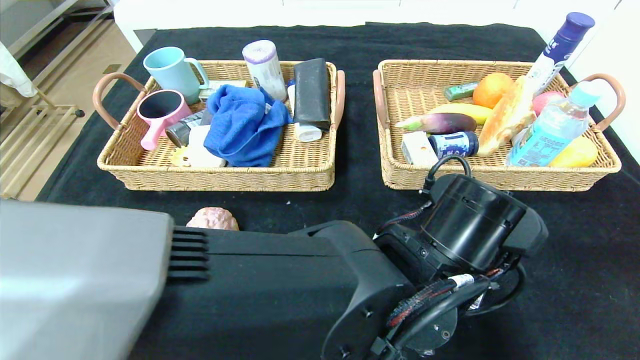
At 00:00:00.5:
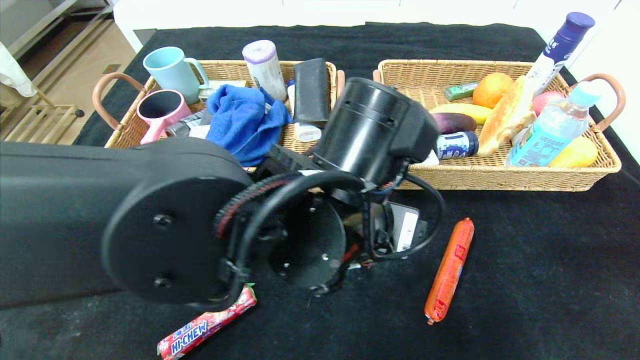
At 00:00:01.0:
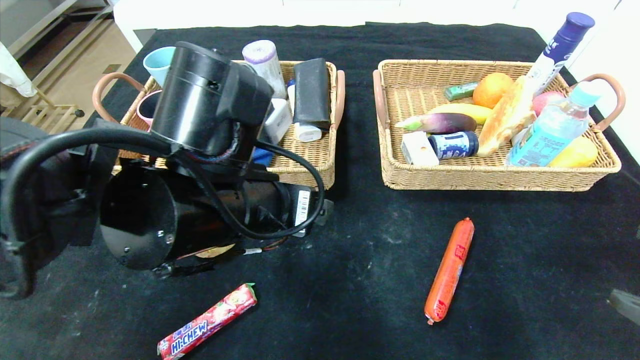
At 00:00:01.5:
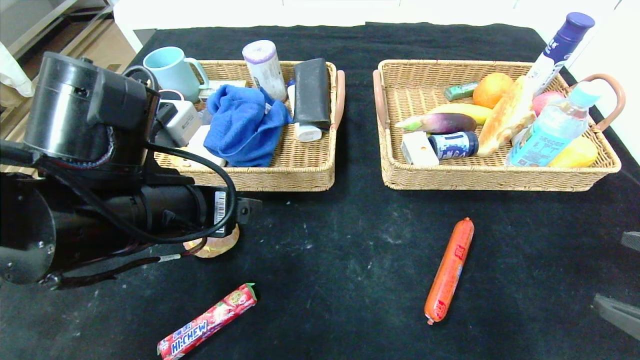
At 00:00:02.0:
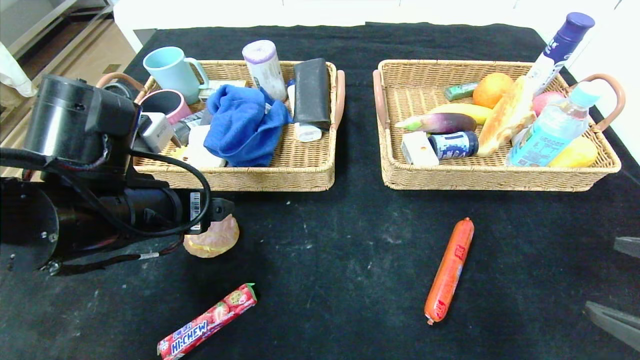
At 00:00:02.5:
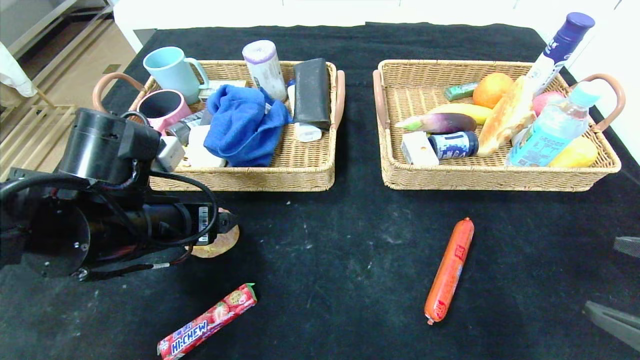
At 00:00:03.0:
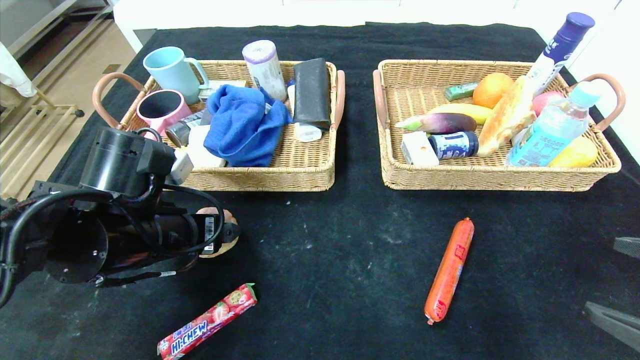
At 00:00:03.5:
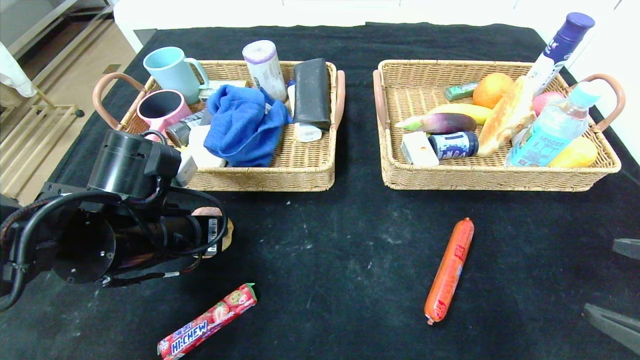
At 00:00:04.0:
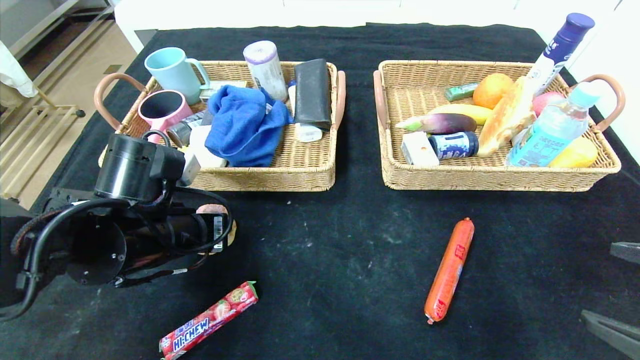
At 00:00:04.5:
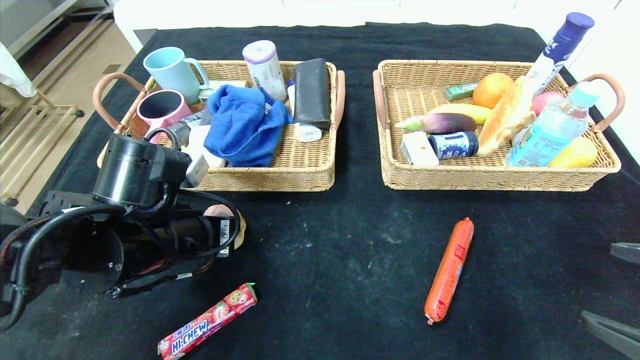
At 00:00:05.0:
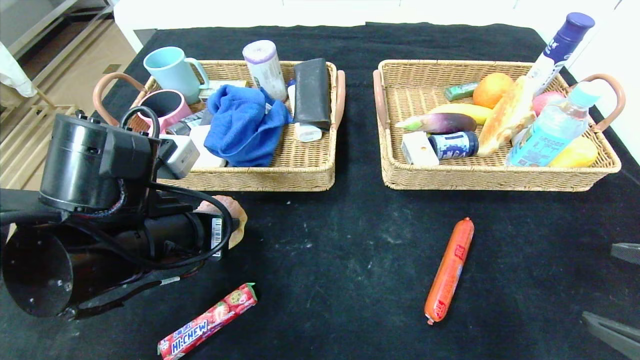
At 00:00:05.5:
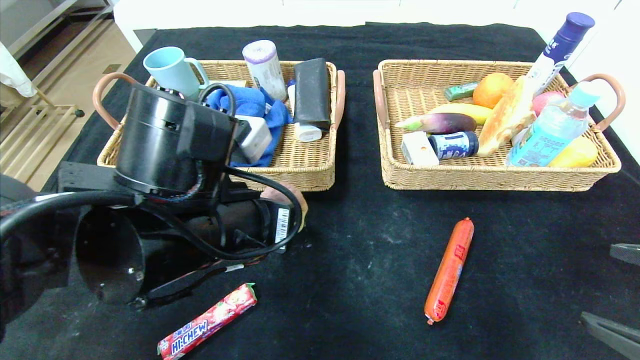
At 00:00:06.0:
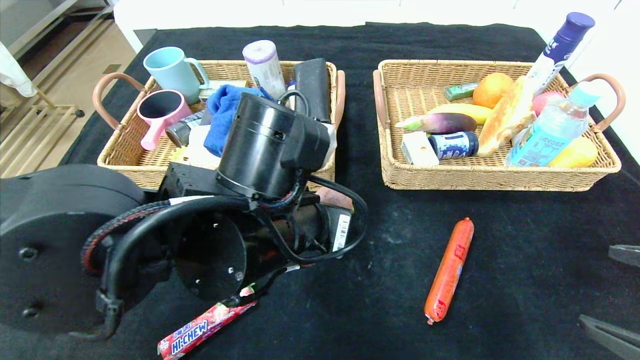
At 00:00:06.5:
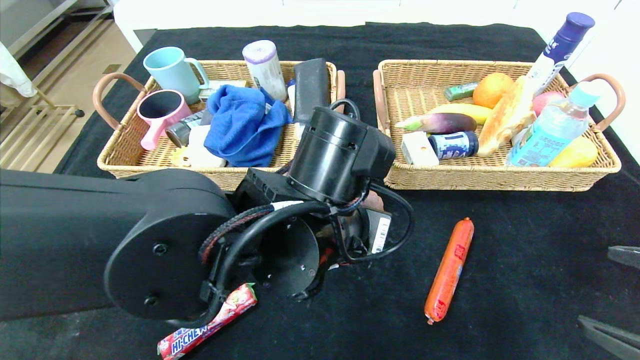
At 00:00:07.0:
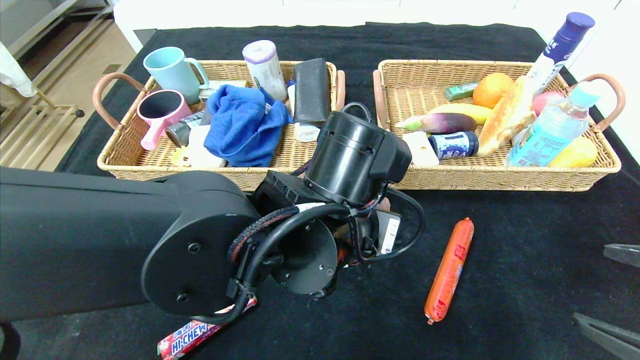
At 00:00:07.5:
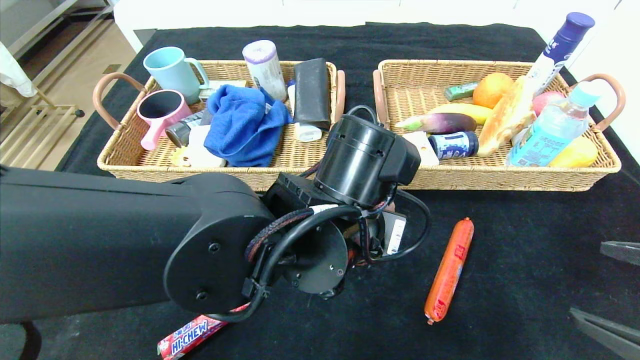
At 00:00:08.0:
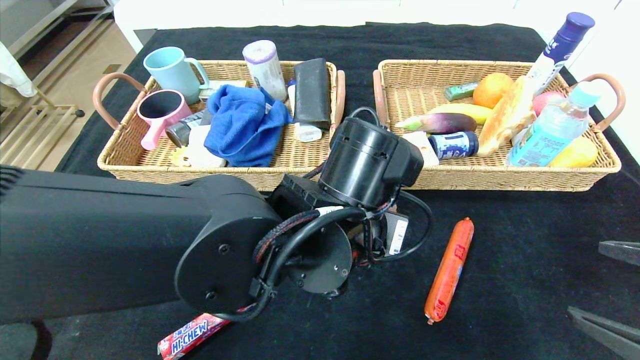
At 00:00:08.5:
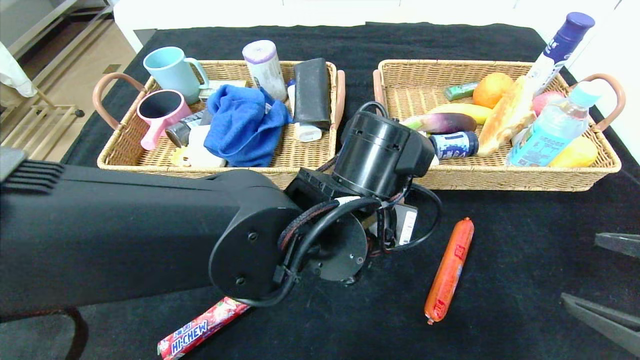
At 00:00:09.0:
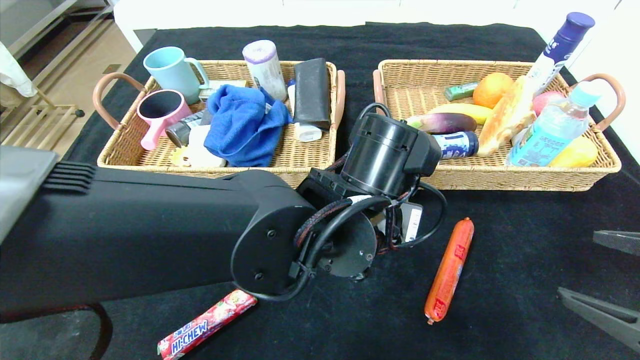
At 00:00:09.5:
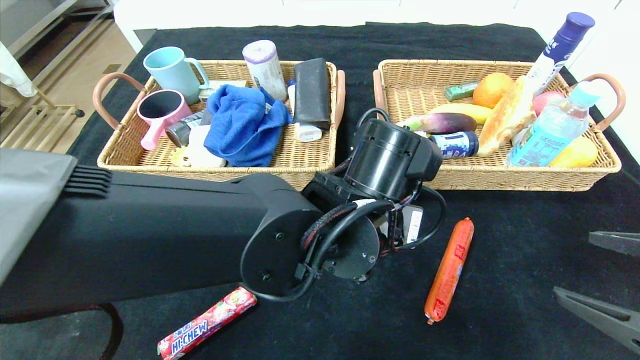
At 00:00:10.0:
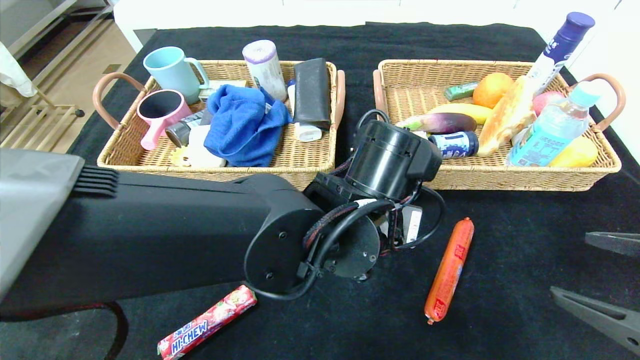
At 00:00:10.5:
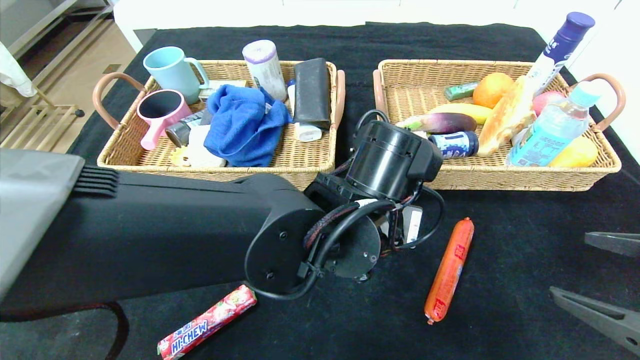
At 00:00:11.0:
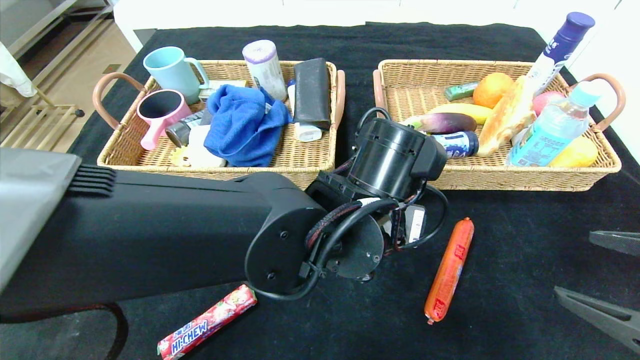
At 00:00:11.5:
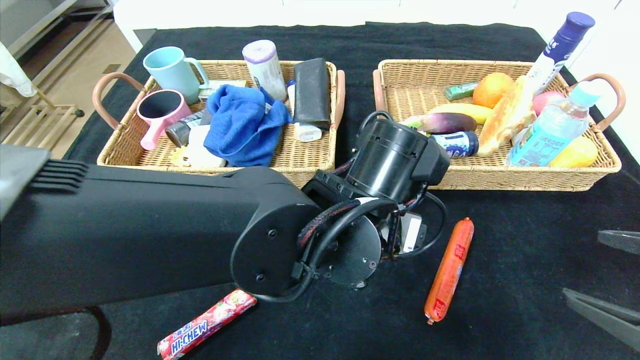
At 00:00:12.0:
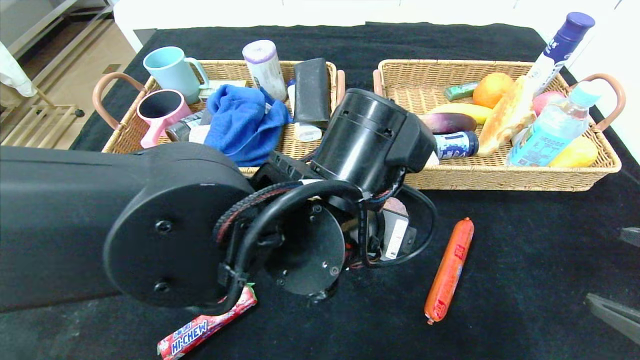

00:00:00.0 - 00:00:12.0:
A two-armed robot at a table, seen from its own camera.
00:00:00.0 - 00:00:02.0: The left gripper moves to the left, about 30 cm.
00:00:02.0 - 00:00:04.0: The left gripper heads downward, covering roughly 5 cm, and closes up.
00:00:04.0 - 00:00:06.0: The left gripper travels to the right by some 15 cm.
00:00:06.0 - 00:00:08.0: The left gripper travels to the right by about 5 cm.
00:00:08.0 - 00:00:10.0: The grippers move only a little.
00:00:10.0 - 00:00:12.0: The left gripper ends up some 5 cm from where it was, and opens its fingers.

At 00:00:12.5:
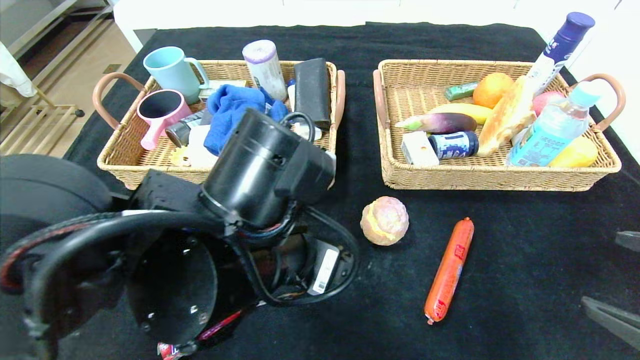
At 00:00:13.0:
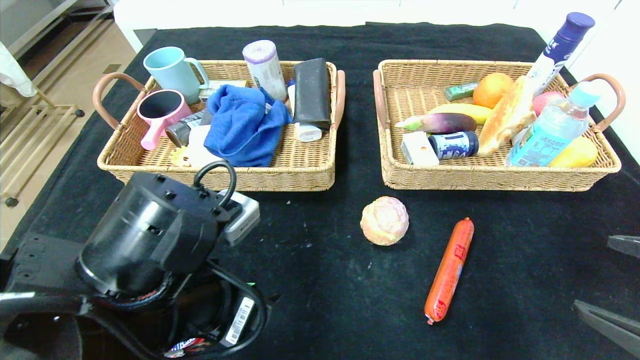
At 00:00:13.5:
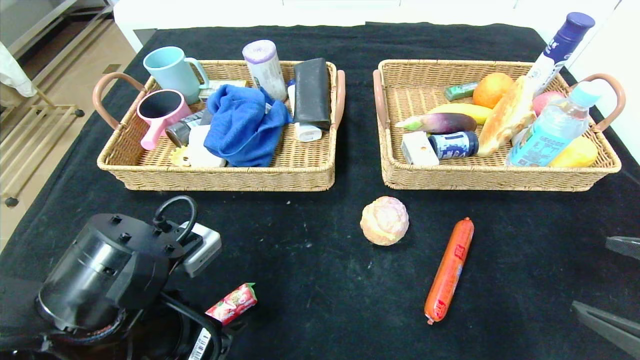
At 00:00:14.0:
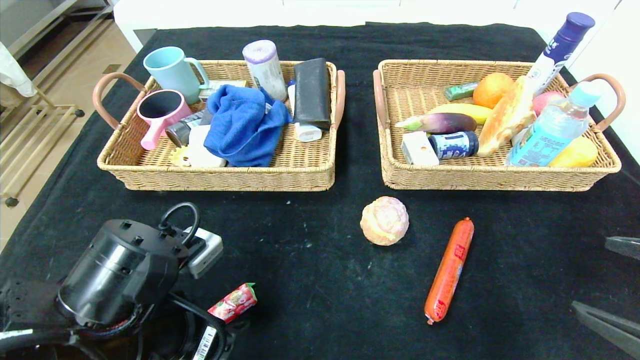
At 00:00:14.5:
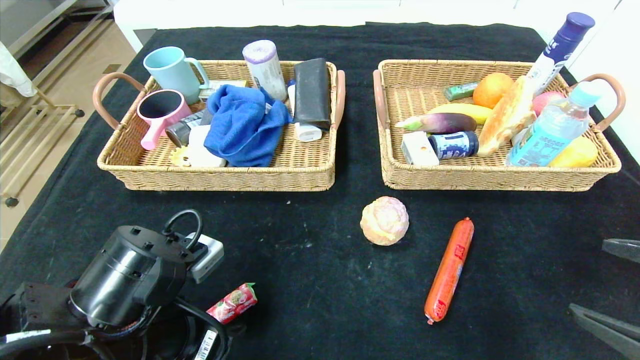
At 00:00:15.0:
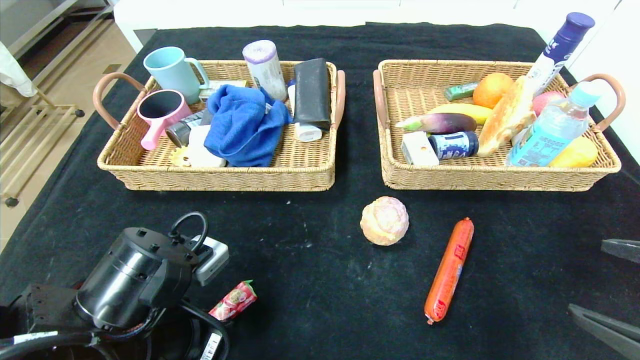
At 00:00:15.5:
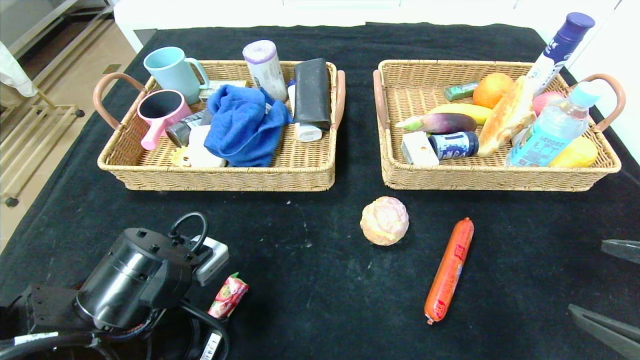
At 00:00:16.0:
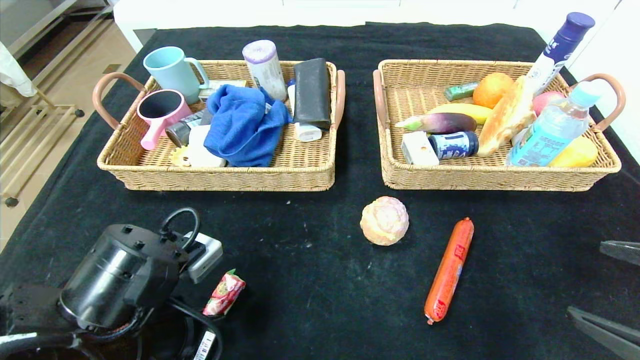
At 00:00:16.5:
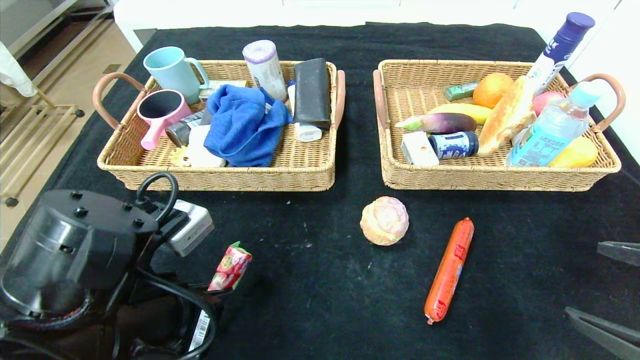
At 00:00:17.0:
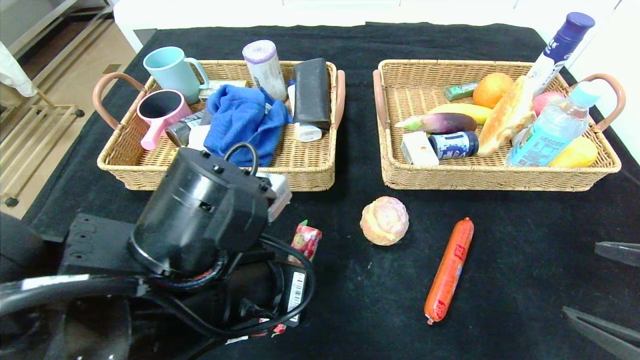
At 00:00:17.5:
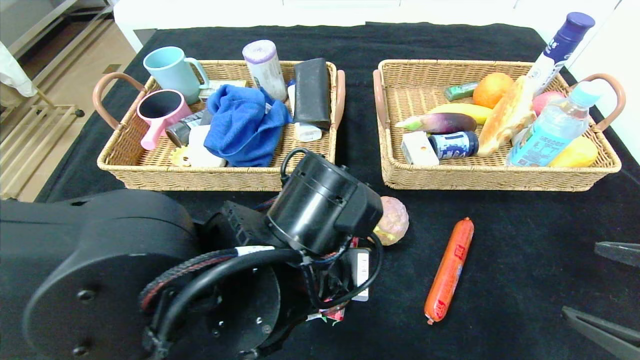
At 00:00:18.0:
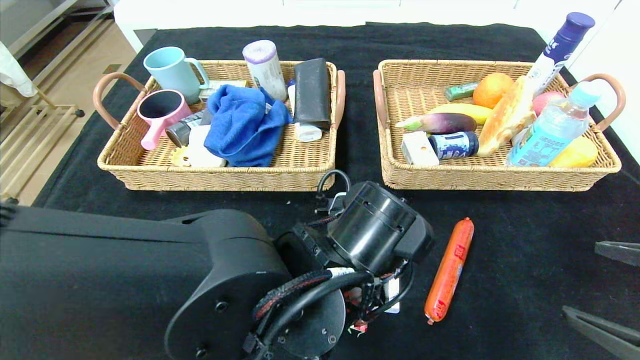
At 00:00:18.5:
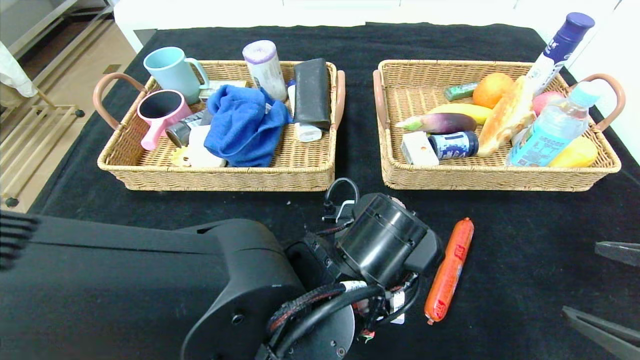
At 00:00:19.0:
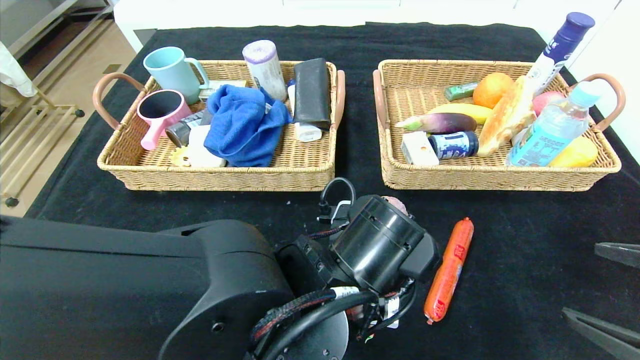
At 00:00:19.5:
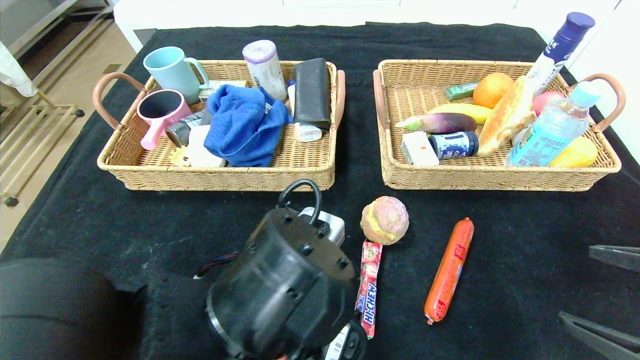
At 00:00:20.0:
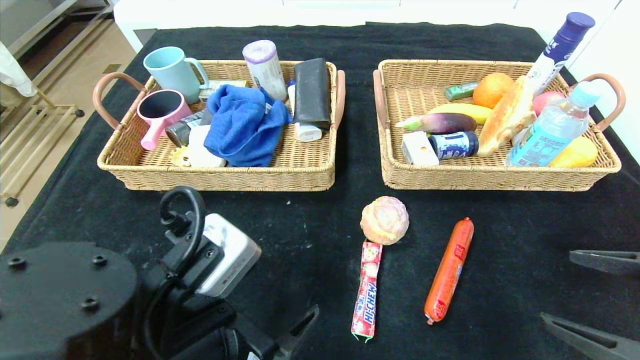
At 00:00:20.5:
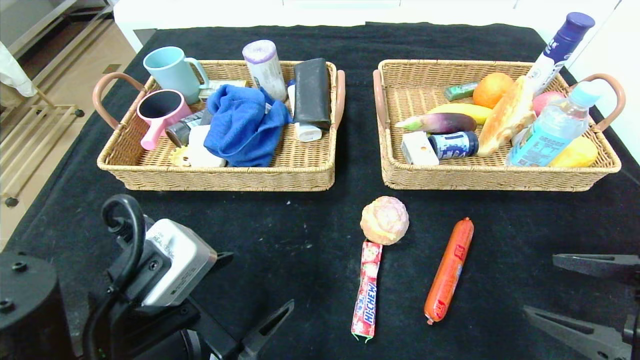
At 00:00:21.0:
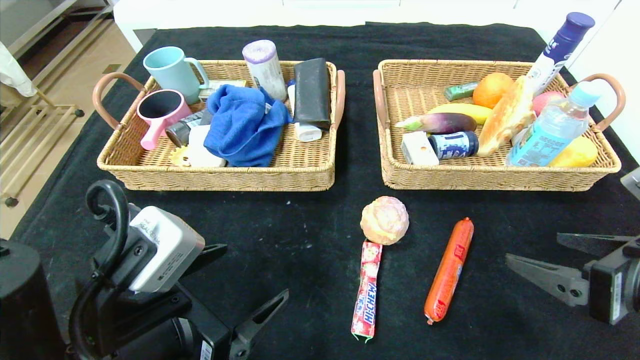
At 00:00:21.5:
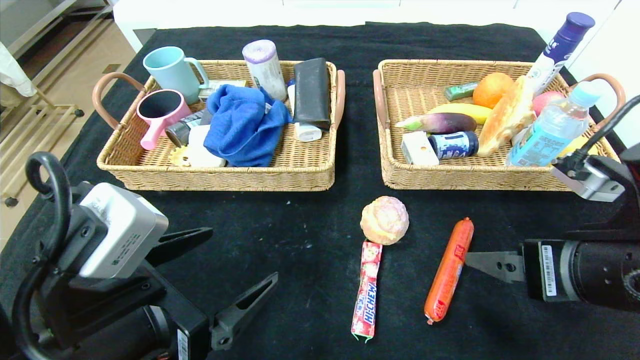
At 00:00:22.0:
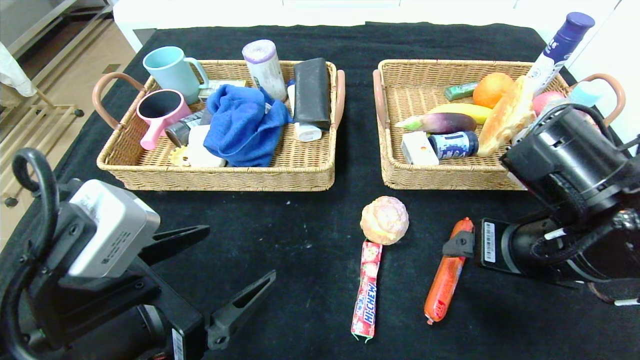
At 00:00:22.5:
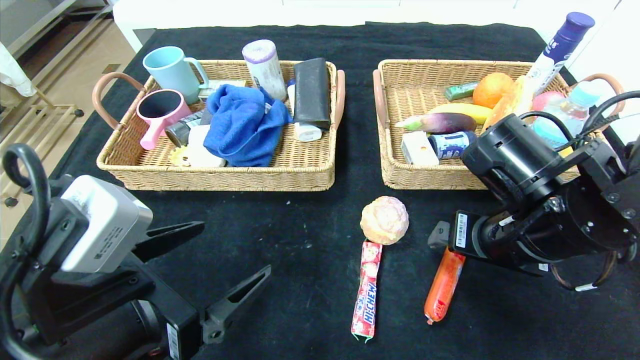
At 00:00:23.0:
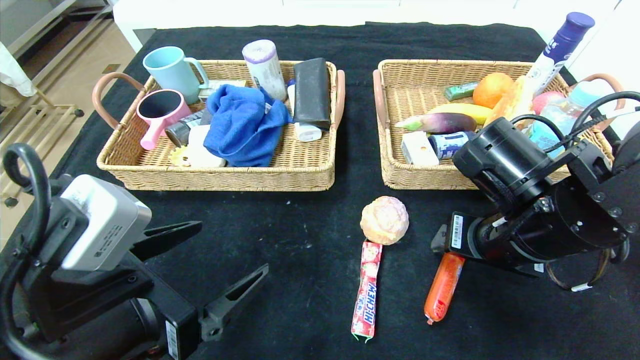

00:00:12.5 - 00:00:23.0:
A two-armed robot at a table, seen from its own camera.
Step, 00:00:12.5 - 00:00:20.0: Place the fruit fudge in the center of the table.
00:00:12.5 - 00:00:14.5: The left gripper travels to the left and downward by about 15 cm.
00:00:14.5 - 00:00:16.5: The left gripper closes.
00:00:16.5 - 00:00:19.0: The left gripper is displaced to the right by some 15 cm, and opens.
00:00:19.0 - 00:00:21.0: The left gripper moves to the left, some 15 cm, while the right gripper moves some 5 cm.
00:00:21.0 - 00:00:23.0: The right gripper shifts some 15 cm to the left and forward.
